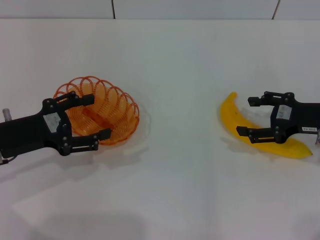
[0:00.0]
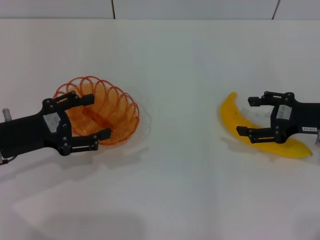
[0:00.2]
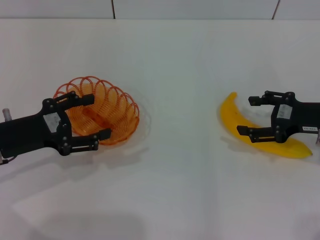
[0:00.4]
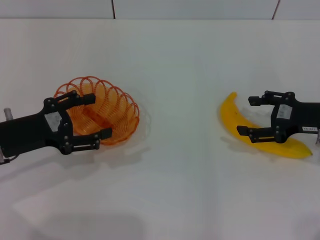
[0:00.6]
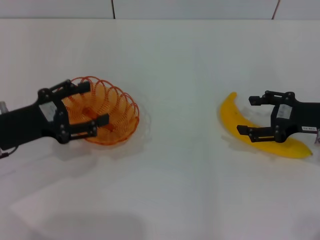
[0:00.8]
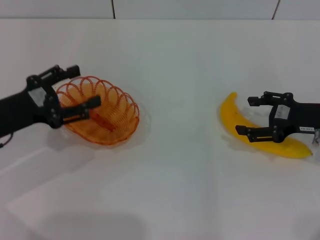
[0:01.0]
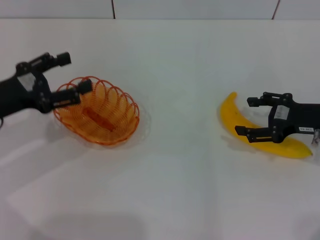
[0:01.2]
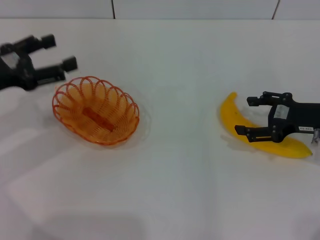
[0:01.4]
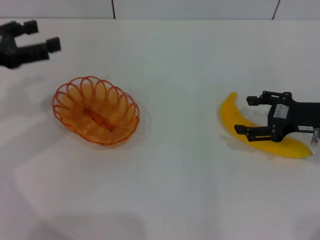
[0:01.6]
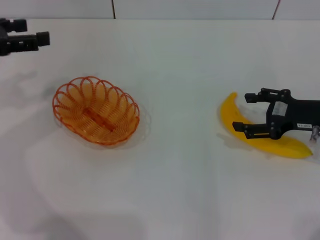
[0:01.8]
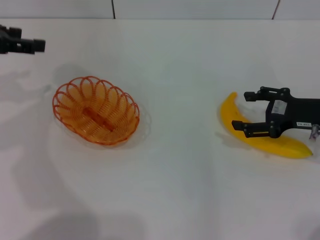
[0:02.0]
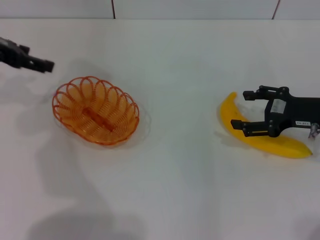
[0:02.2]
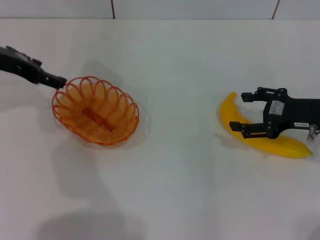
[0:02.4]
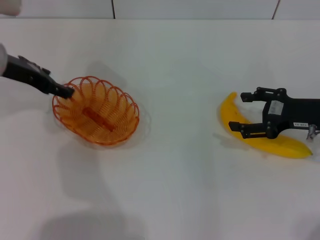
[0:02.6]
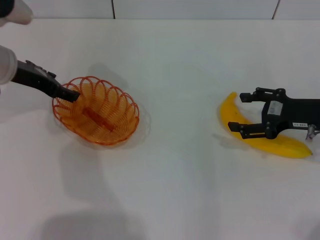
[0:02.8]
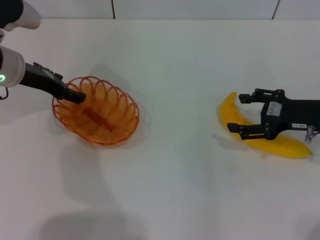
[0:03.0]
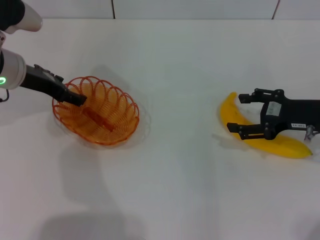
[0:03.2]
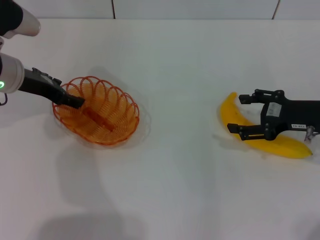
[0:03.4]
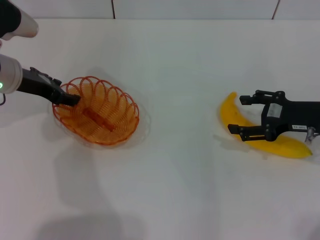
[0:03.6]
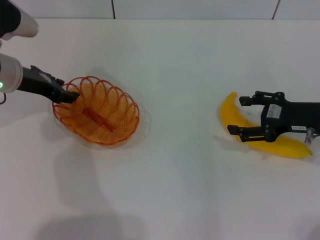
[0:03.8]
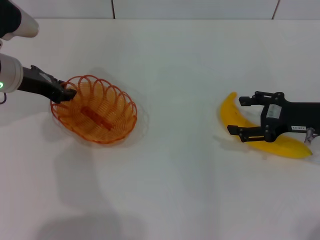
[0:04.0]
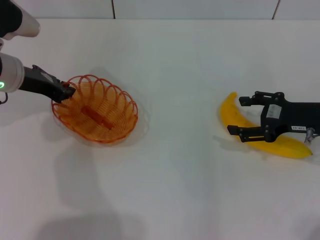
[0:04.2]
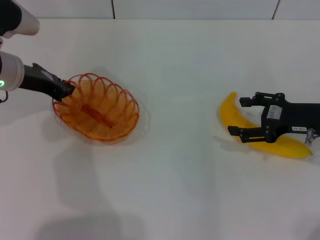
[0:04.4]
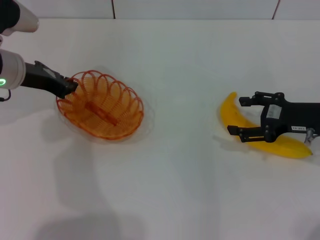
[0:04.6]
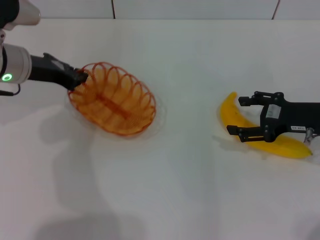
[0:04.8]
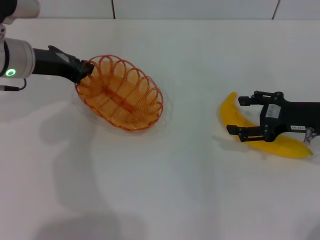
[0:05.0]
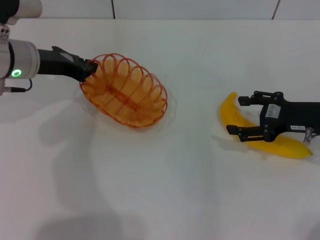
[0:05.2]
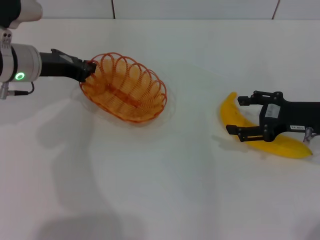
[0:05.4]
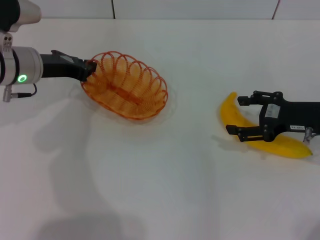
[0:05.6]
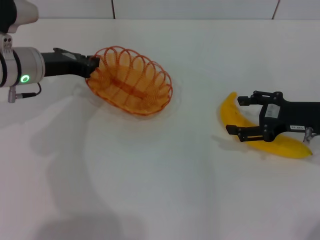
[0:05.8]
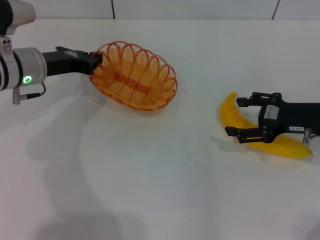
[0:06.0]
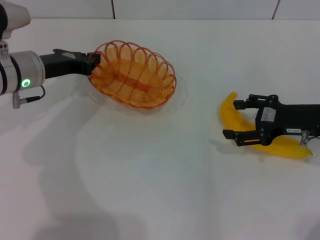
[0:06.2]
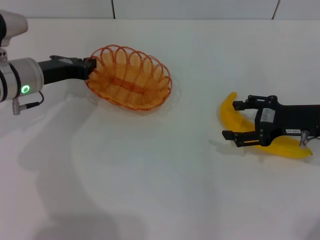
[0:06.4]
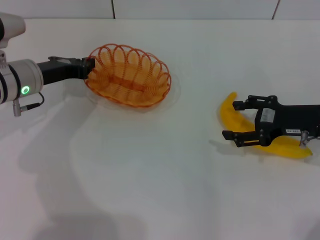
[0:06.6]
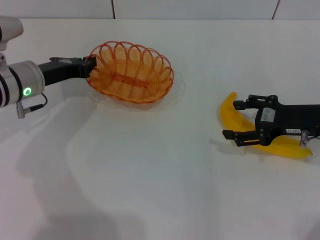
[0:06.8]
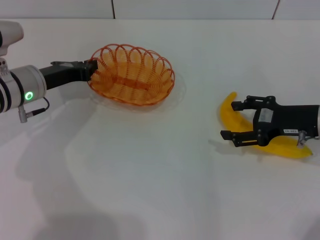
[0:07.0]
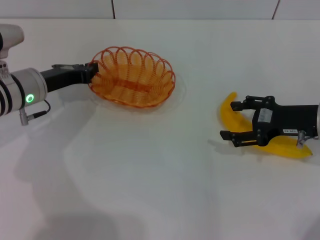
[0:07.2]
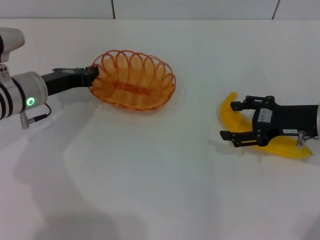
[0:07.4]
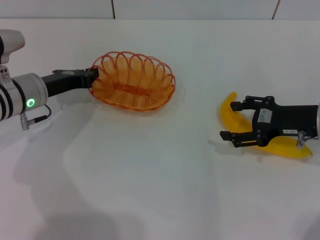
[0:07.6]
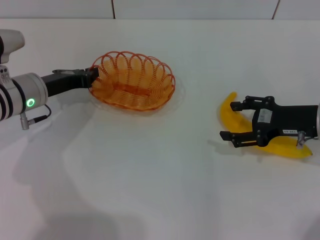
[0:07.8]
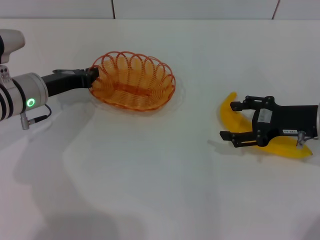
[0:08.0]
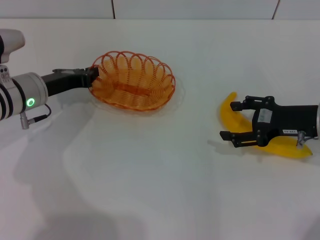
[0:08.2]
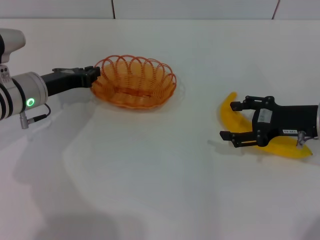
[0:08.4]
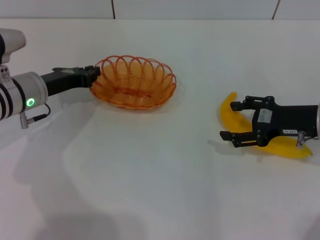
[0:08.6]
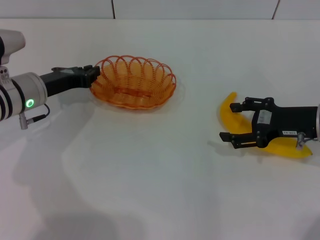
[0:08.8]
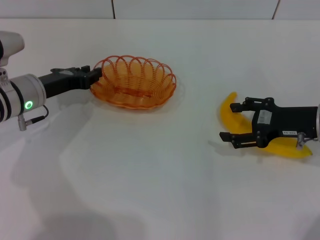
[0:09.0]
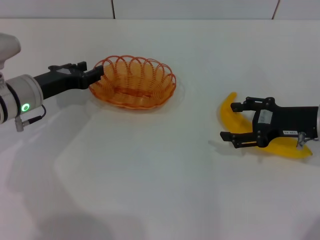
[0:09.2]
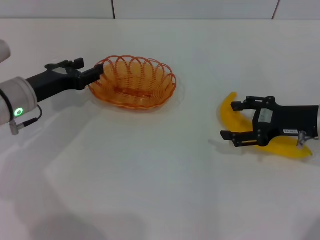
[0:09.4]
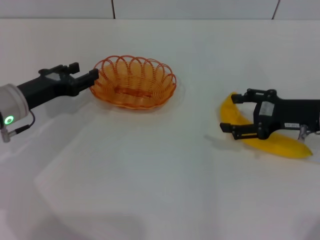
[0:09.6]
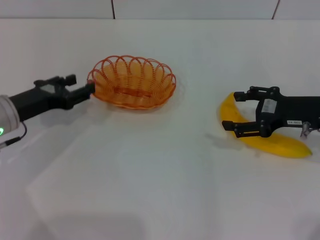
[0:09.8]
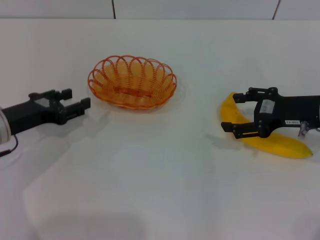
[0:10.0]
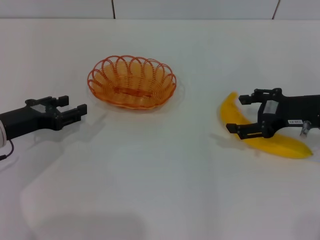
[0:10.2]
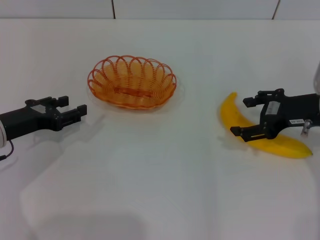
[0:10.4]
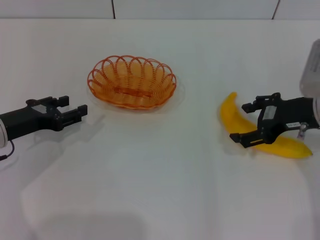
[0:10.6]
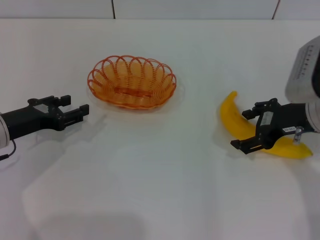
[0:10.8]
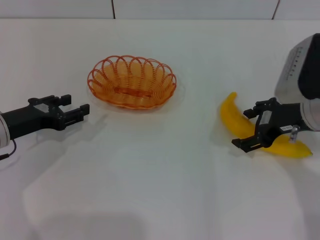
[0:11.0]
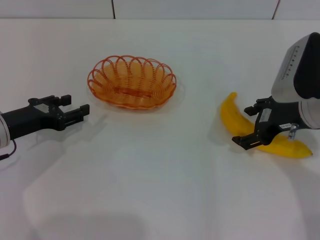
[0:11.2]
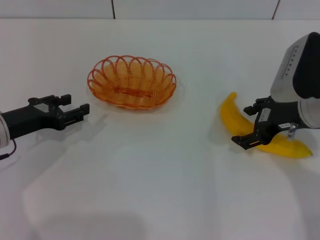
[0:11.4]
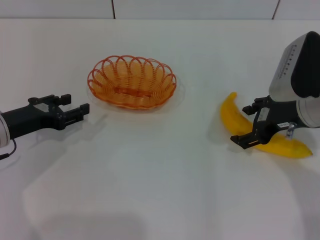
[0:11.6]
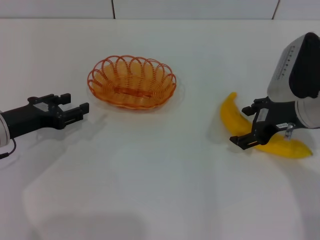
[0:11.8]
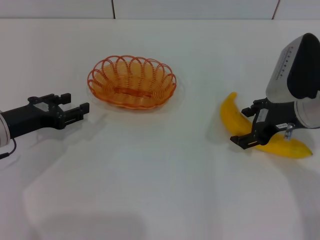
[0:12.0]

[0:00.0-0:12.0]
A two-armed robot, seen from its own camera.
Step, 0:00.0 to 0:05.0: Pick up the basket with the left gripper.
Step, 0:05.2 to 0:09.8: Place the basket in the center of view with the left gripper.
0:00.0 to 0:01.6: The left gripper moves upward, roughly 10 cm.
0:01.6 to 0:03.0: The left gripper shifts approximately 10 cm to the right and forward.
0:03.0 to 0:04.4: The left gripper closes.
0:06.0 to 0:07.6: The grippers move only a little.
0:07.6 to 0:09.0: Both grippers stay about where they are.
0:09.0 to 0:10.4: The left gripper heads backward, covering roughly 5 cm, and opens its fingers.
0:10.4 to 0:12.0: The grippers stay close to where they were, moving slightly.

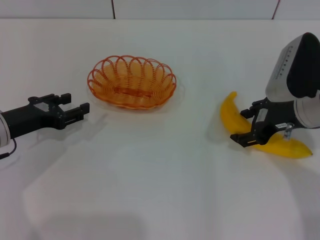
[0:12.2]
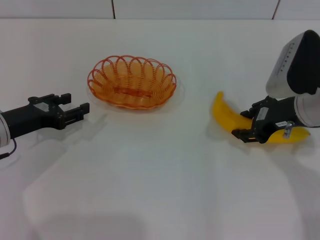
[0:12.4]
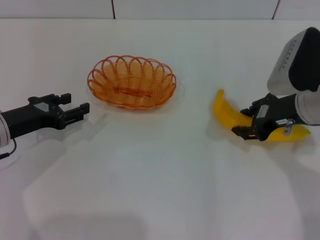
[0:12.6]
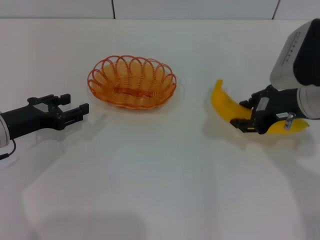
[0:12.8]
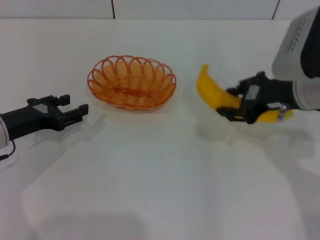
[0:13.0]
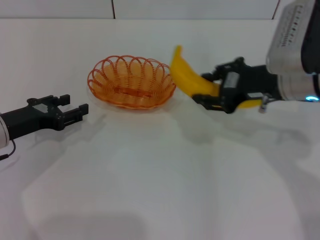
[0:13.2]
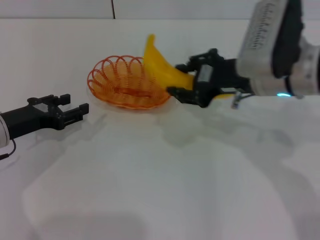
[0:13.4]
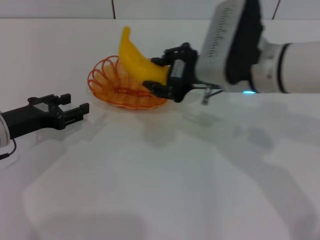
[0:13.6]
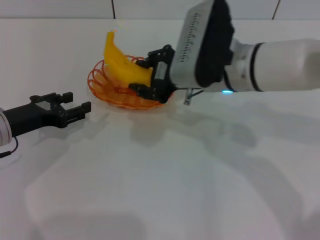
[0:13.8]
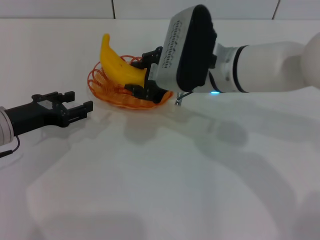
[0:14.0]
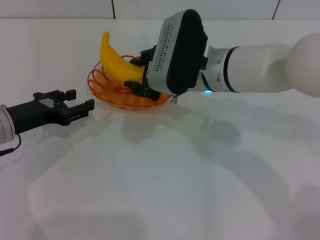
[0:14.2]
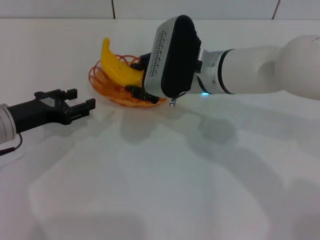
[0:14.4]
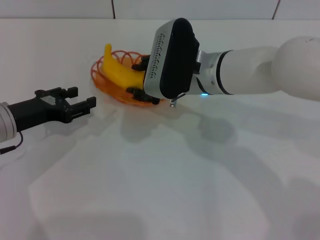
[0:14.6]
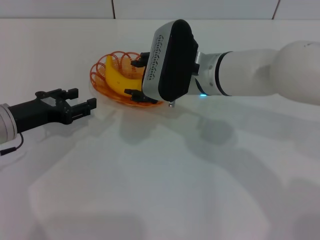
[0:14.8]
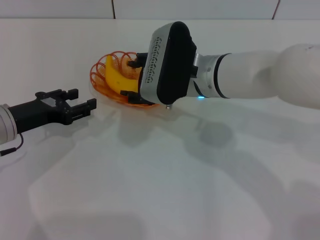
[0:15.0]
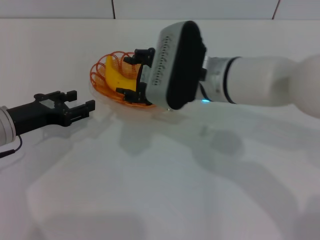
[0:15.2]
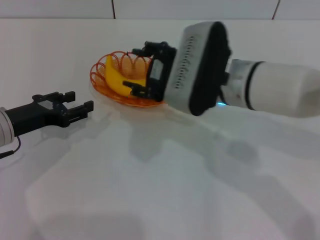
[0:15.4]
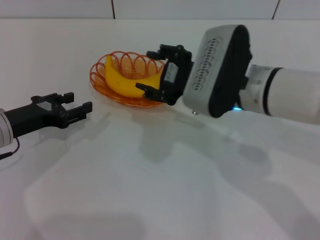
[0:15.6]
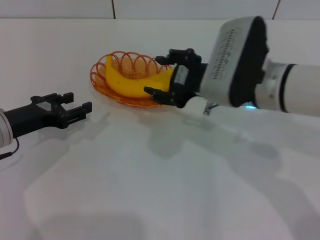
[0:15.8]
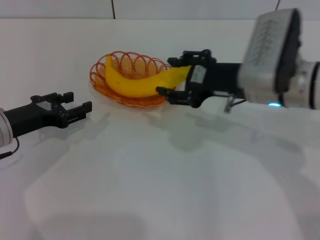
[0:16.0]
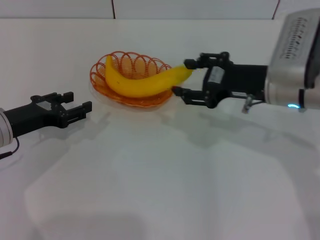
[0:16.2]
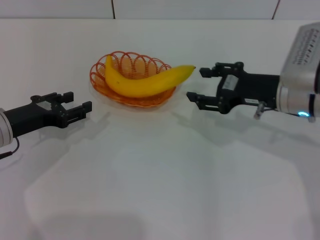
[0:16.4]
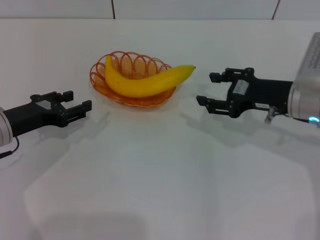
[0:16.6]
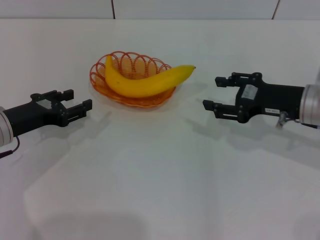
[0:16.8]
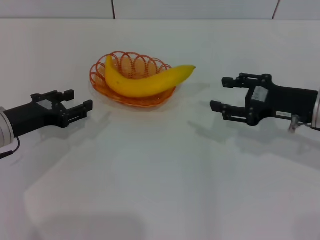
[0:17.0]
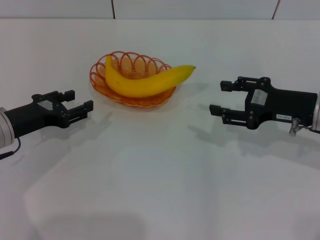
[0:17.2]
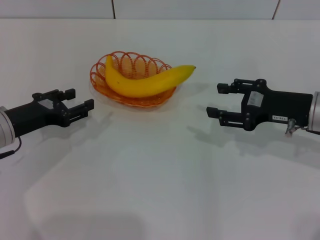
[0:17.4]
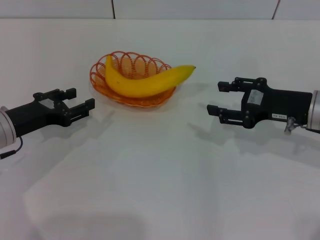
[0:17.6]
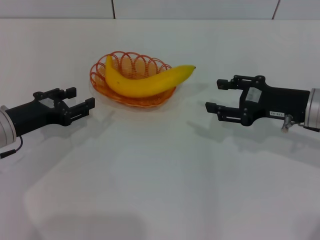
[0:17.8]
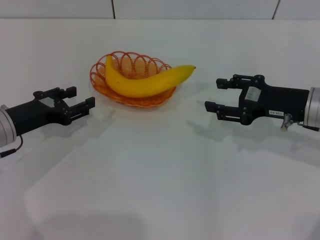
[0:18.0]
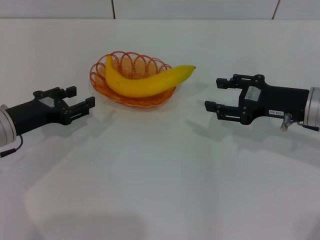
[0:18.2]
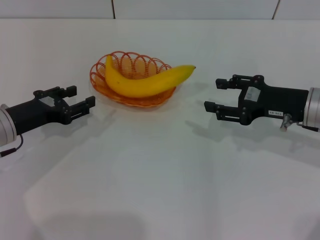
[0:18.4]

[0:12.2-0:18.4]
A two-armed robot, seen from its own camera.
Step, 0:13.0 to 0:15.4: Place the banana into the basket with the right gripper.
0:12.2 to 0:13.8: The right gripper shifts some 15 cm to the left, and closes its fingers.
0:13.8 to 0:15.4: The right gripper opens its fingers.
0:15.4 to 0:16.8: The right gripper is displaced to the right by approximately 15 cm.
0:16.8 to 0:18.4: The grippers move only a little.

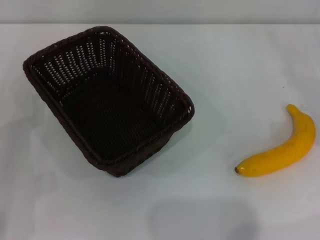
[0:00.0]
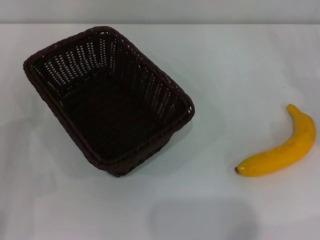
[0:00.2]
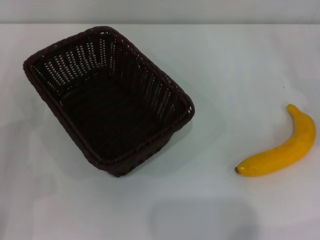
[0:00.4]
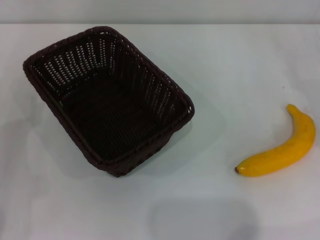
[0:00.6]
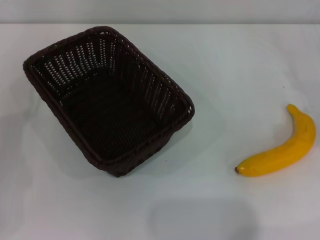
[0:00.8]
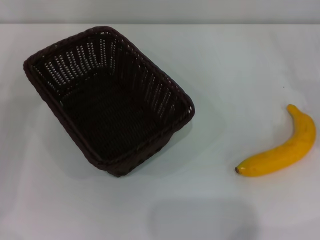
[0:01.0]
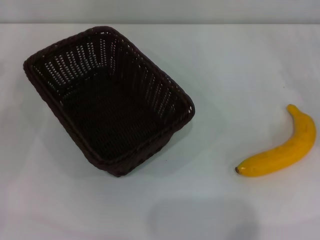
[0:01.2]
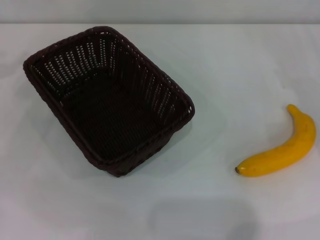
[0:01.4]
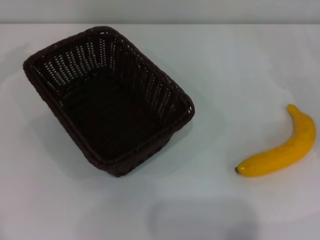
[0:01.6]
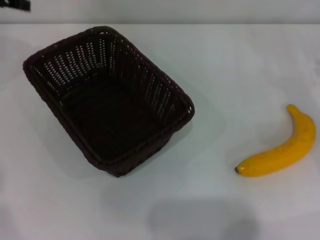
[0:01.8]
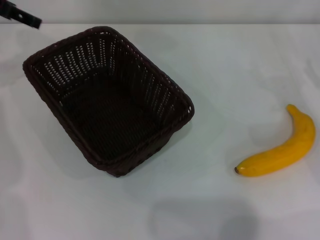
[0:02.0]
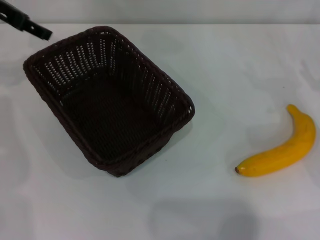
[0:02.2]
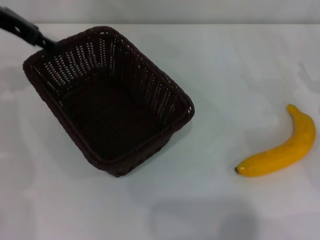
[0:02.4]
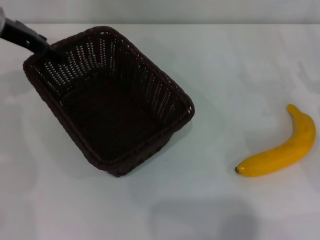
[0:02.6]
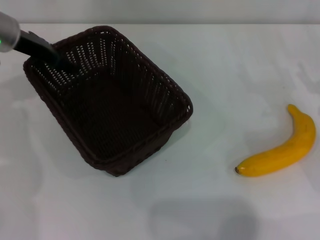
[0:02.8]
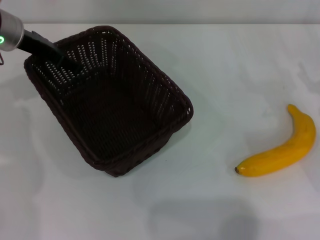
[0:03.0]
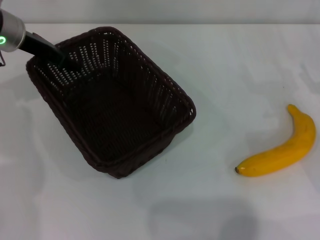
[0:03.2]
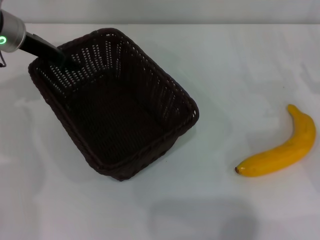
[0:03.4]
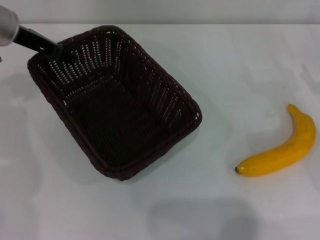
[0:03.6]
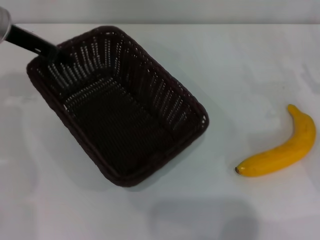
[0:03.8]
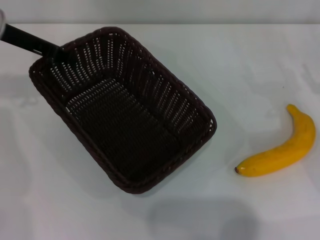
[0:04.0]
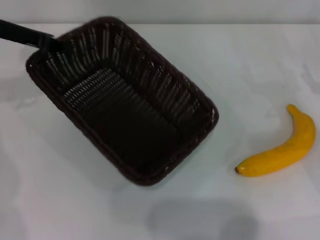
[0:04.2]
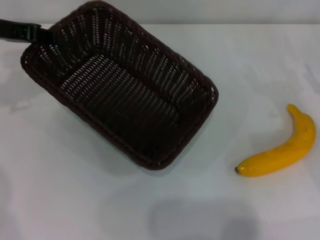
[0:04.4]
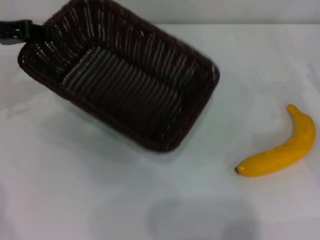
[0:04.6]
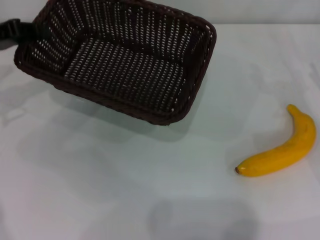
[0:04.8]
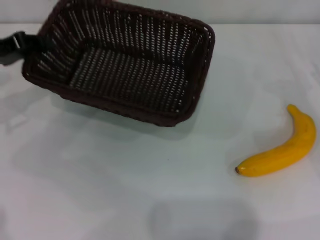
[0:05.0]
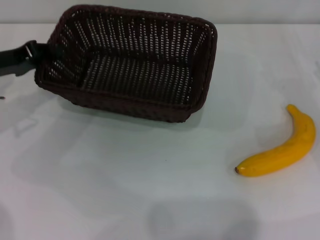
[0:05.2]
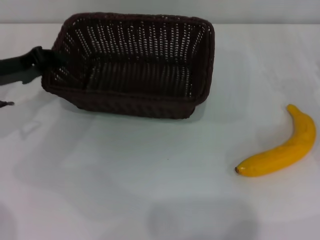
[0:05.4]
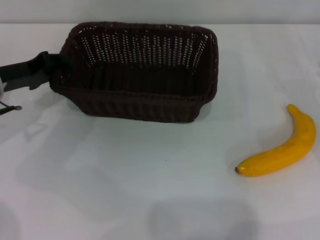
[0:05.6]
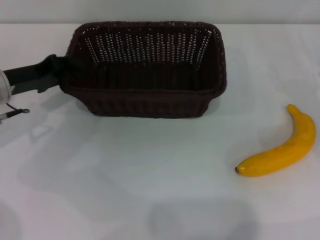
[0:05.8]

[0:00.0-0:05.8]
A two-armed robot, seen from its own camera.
Step, 0:00.0 to 0:04.2: Pick up the dark basket with the left gripper.
0:01.4 to 0:02.8: The left gripper travels to the right and forward by some 15 cm.
0:02.8 to 0:04.4: The left gripper goes approximately 5 cm to the left, and closes its fingers.
0:04.4 to 0:05.8: The left gripper shifts approximately 10 cm downward.
